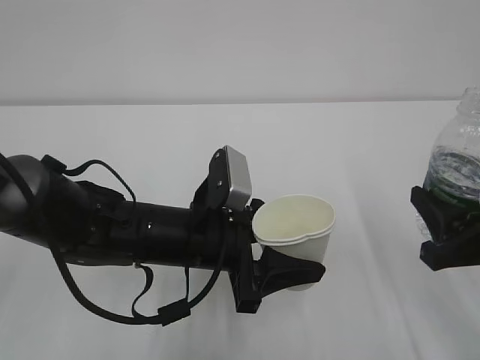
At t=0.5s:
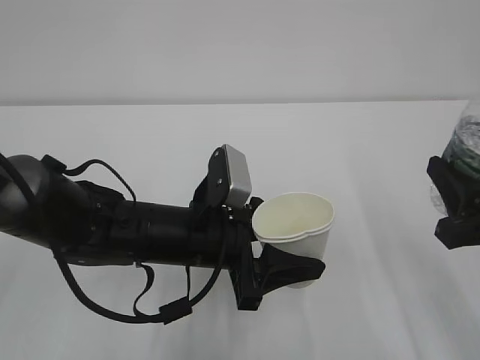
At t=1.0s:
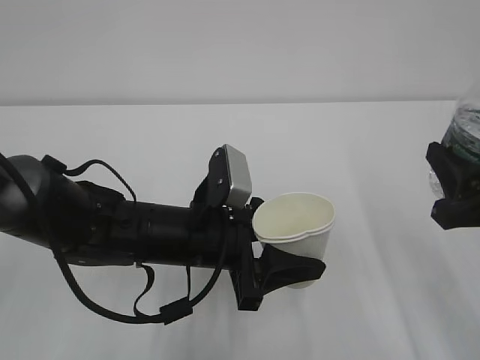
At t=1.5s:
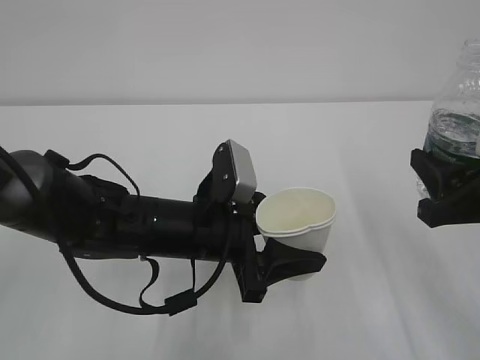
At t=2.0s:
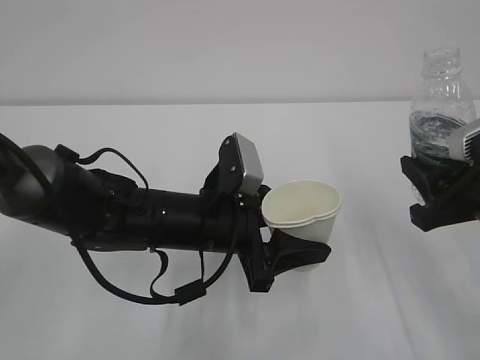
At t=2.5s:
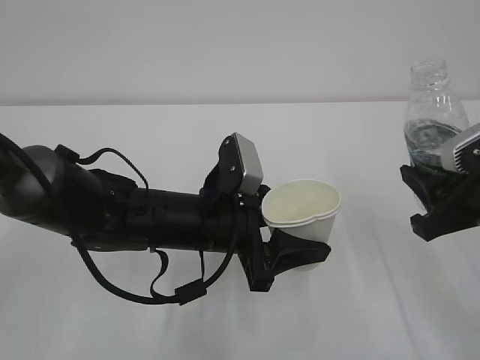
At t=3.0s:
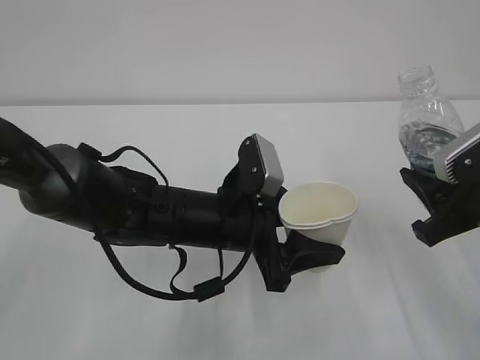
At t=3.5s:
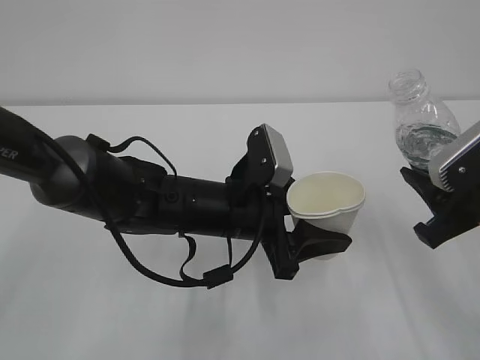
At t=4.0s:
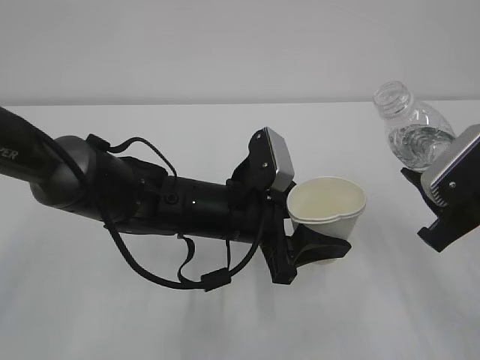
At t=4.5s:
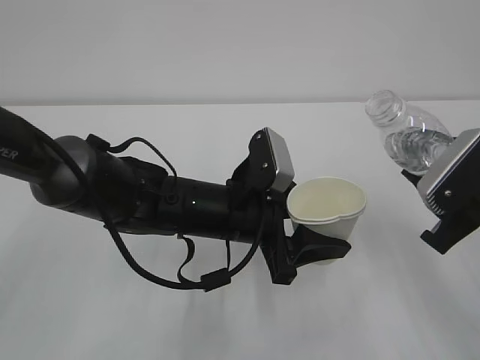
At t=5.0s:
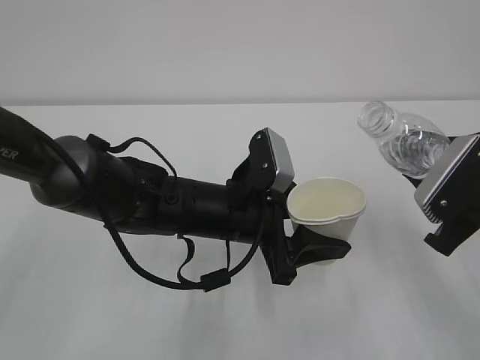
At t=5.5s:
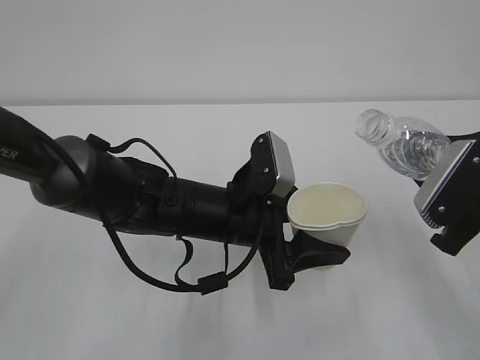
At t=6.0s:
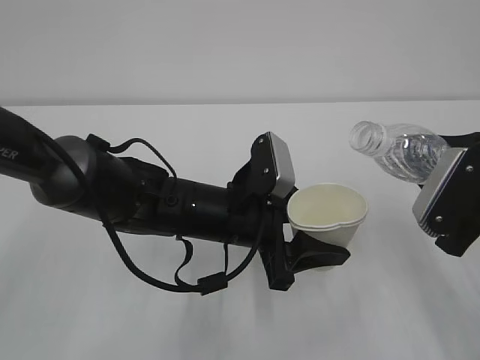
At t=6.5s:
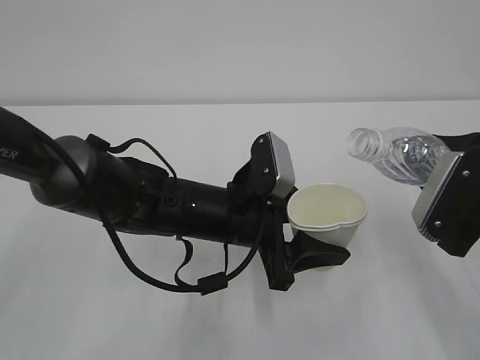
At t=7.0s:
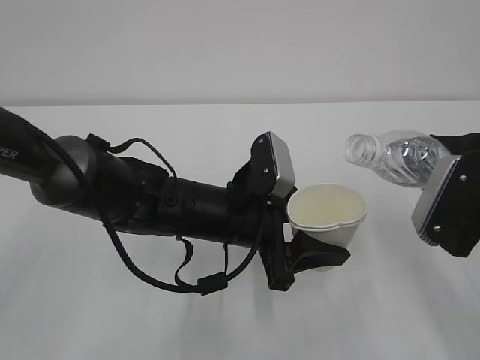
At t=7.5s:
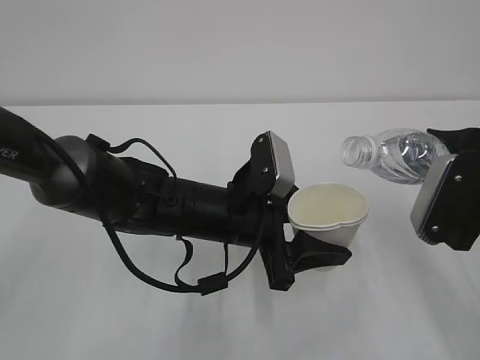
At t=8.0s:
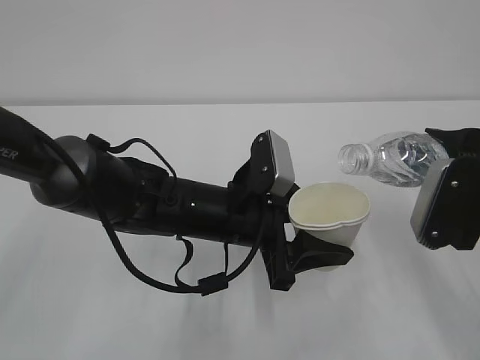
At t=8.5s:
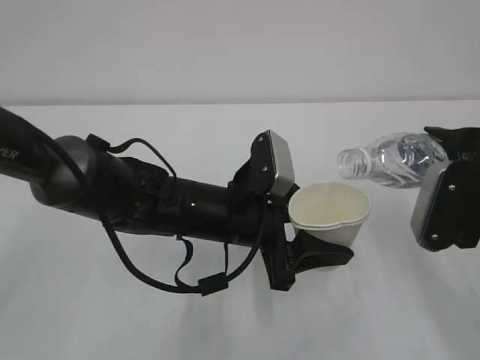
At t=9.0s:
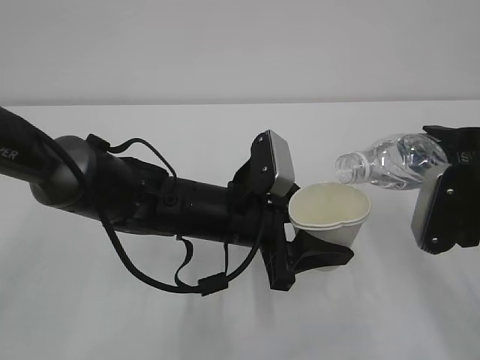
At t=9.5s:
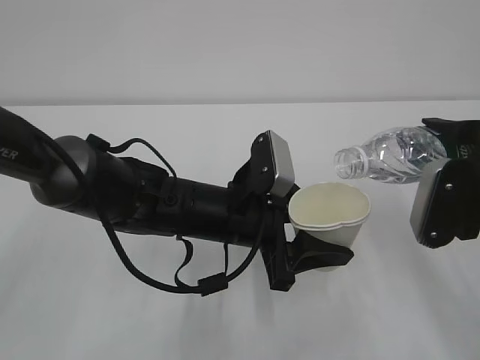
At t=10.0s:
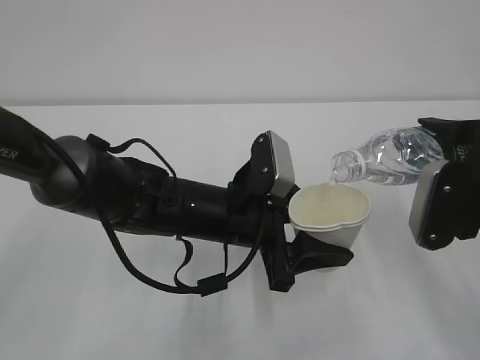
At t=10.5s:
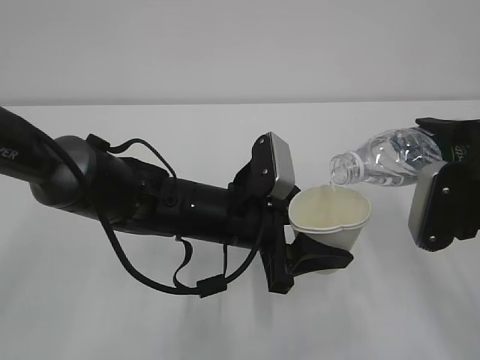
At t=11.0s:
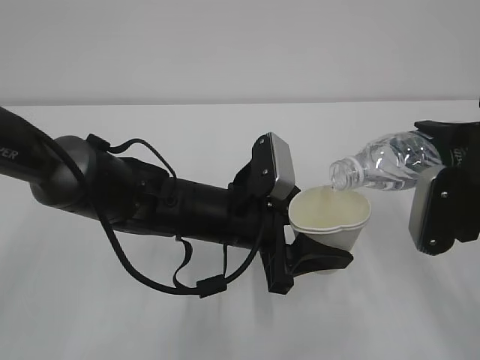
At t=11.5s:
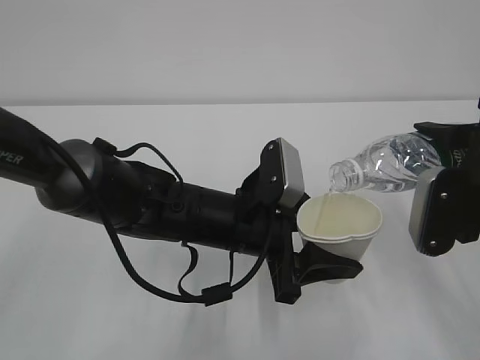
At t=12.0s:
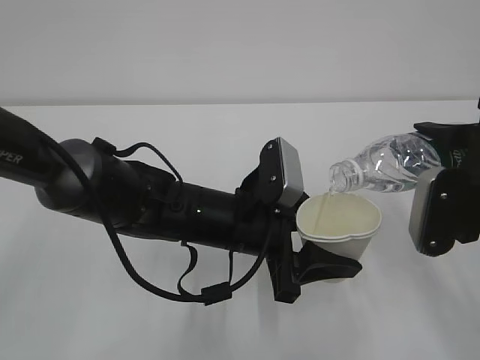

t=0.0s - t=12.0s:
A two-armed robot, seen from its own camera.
t=0.0s - t=2.0s: The grippers move only a little.
t=6.0s - t=8.0s: The grippers stay close to where they were, moving slightly.
t=8.0s - t=10.0s: The grippers stay close to where they were, moving slightly.
t=10.0s - t=12.0s: Neither gripper changes place.

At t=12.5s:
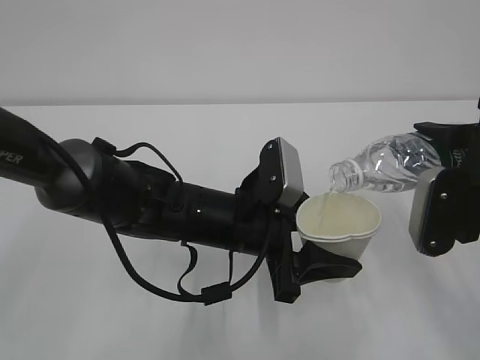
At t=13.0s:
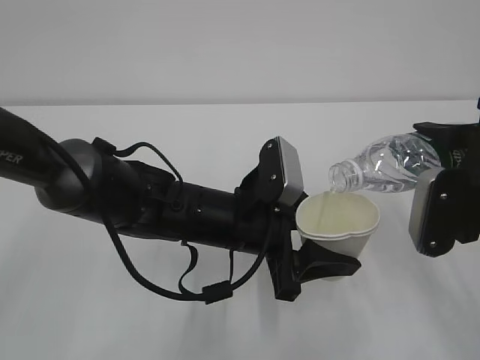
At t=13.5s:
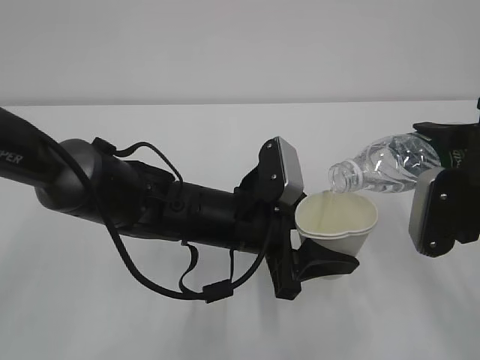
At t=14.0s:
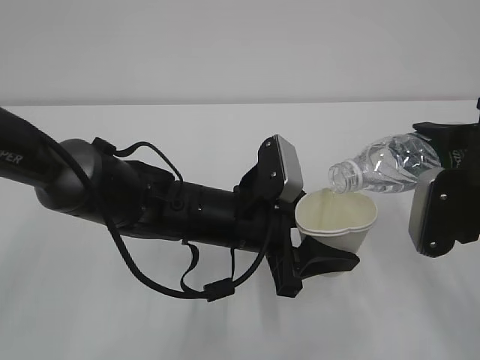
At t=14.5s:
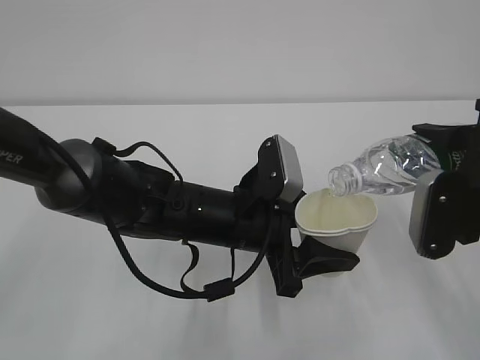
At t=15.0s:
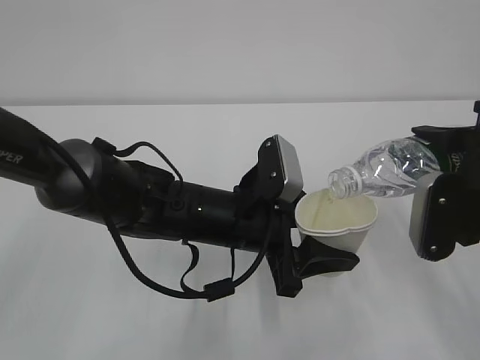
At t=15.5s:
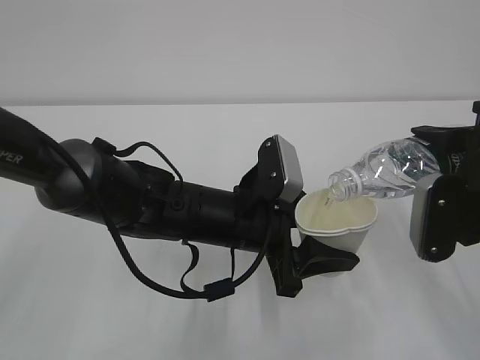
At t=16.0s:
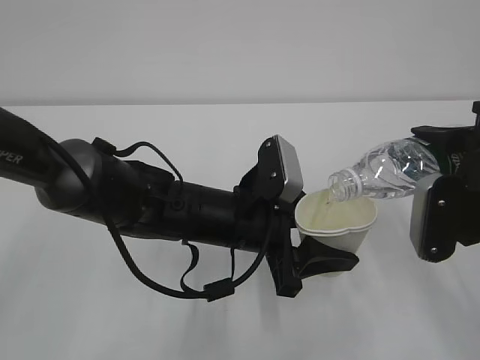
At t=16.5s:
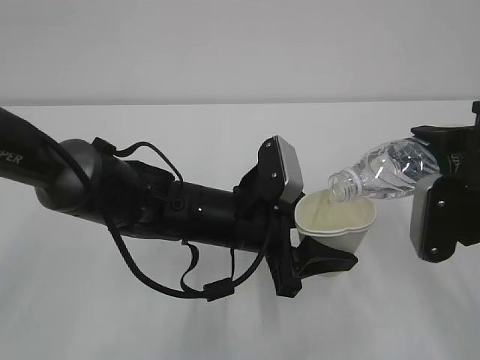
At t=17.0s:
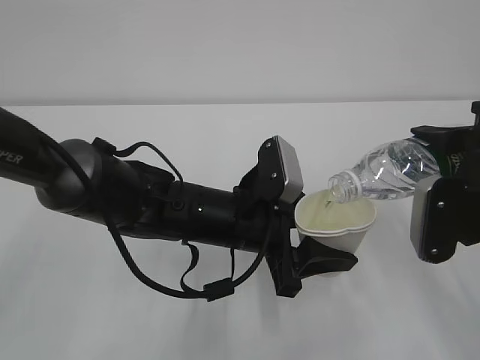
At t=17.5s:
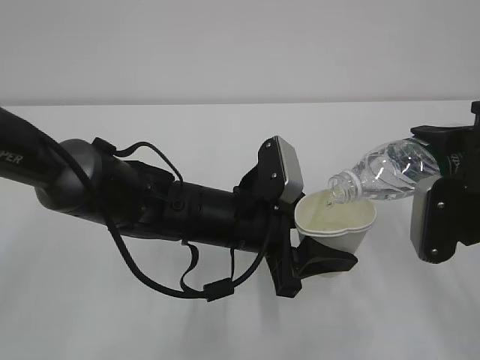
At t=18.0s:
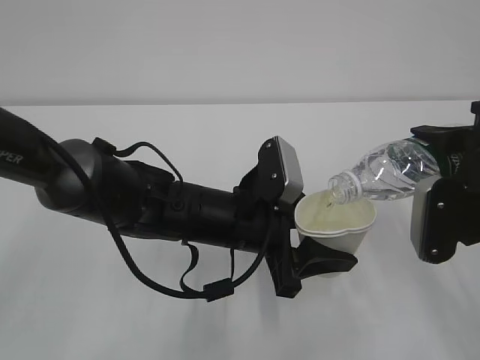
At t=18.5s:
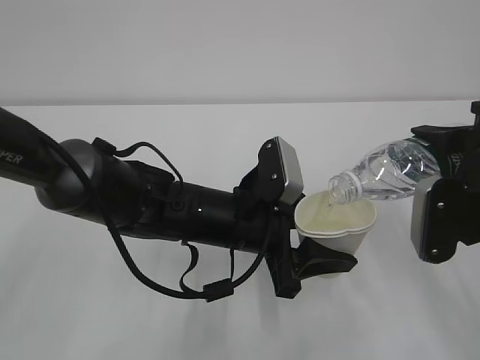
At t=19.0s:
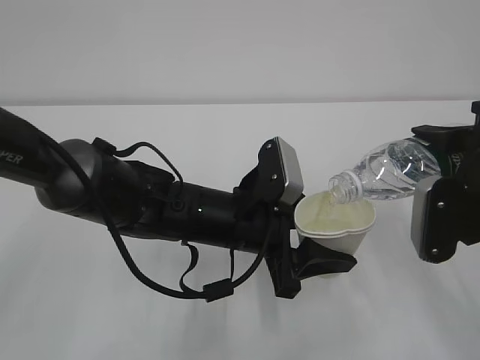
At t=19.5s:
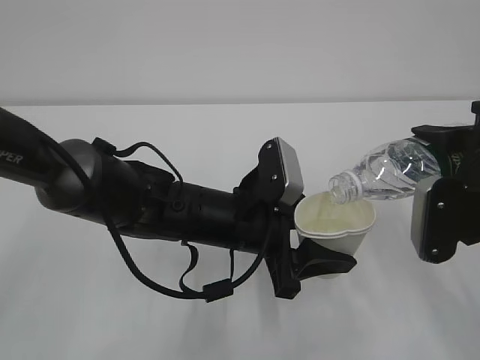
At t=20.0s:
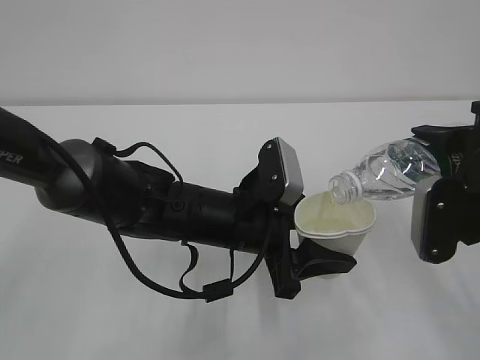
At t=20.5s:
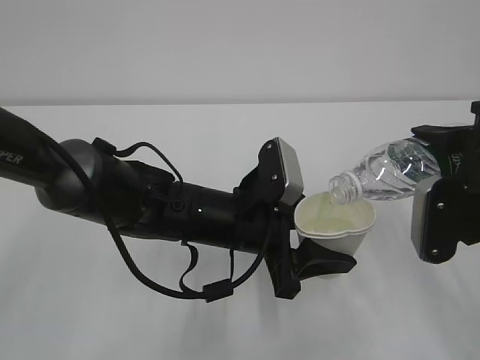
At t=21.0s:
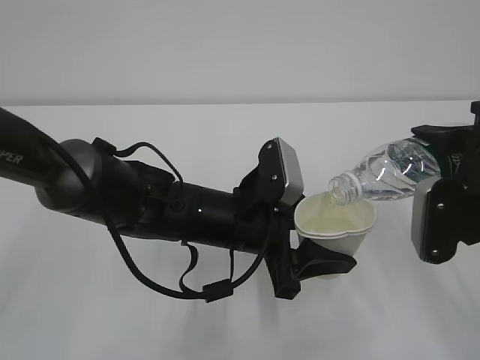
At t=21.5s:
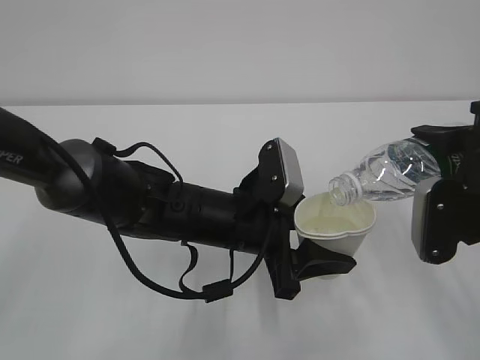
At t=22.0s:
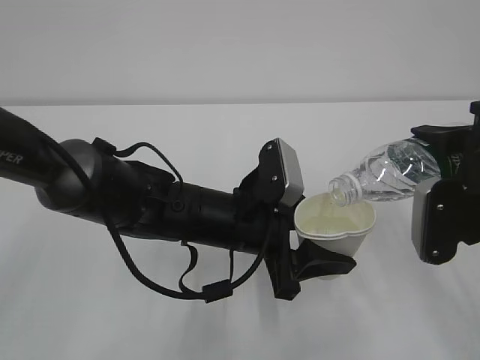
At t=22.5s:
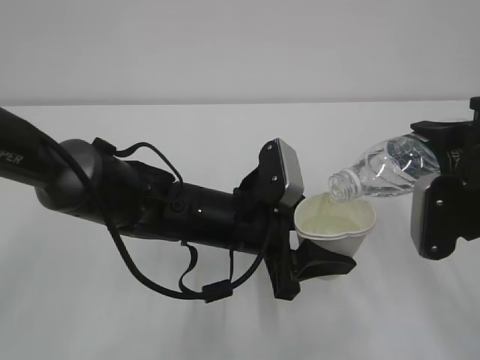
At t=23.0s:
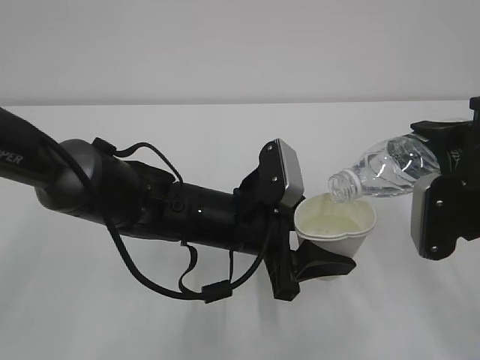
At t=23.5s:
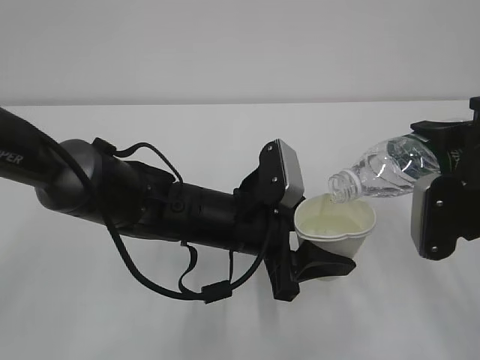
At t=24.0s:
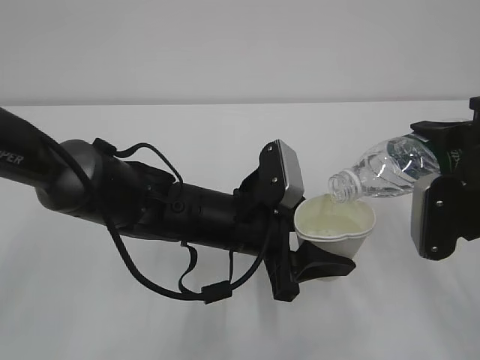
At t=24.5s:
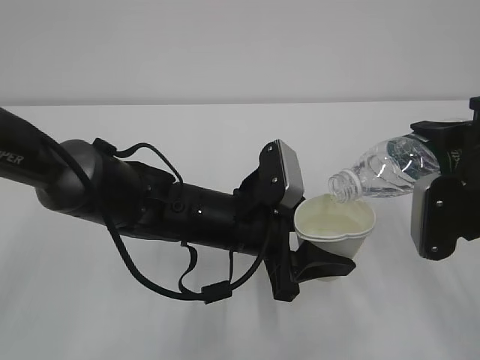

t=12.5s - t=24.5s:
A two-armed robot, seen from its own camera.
t=12.5s - t=18.5s: The two grippers keep their place.
t=18.5s - t=24.5s: Both grippers stay about where they are.

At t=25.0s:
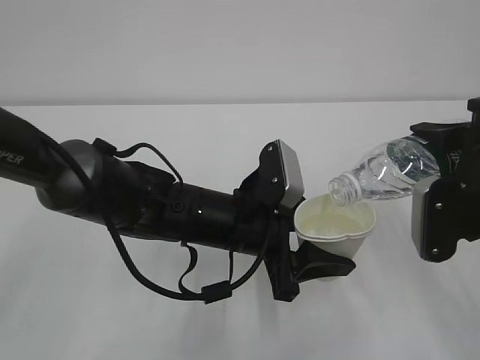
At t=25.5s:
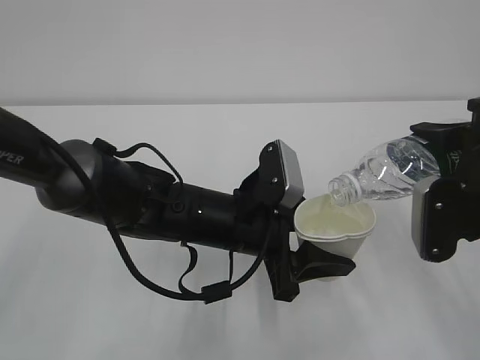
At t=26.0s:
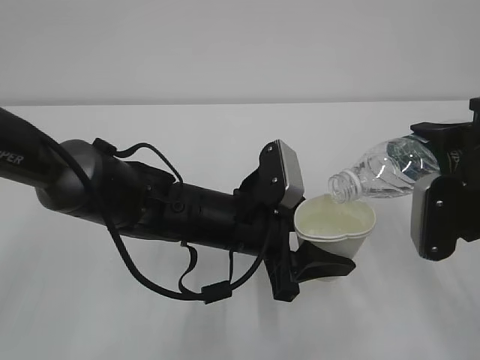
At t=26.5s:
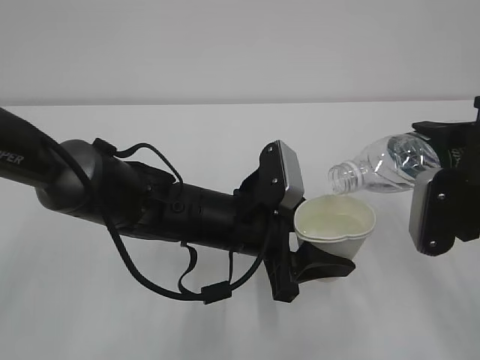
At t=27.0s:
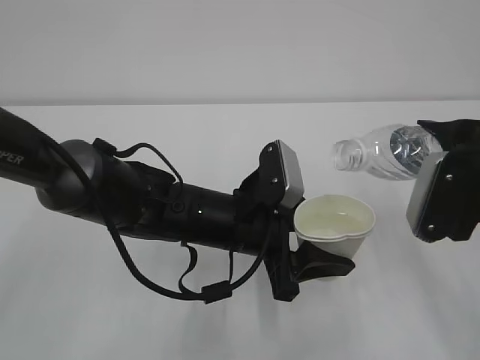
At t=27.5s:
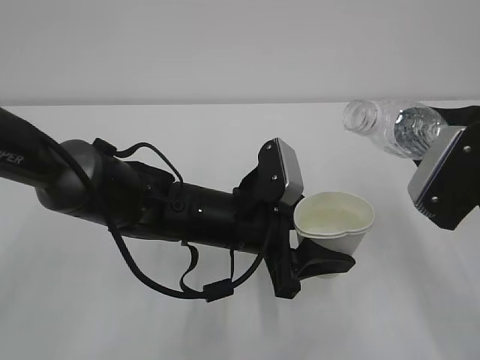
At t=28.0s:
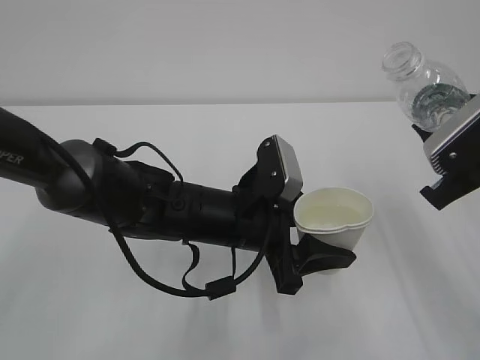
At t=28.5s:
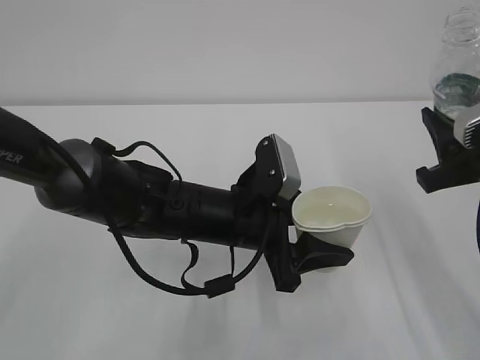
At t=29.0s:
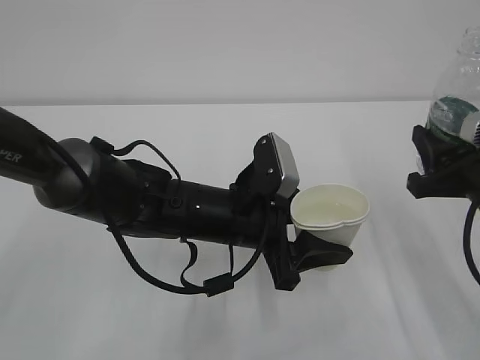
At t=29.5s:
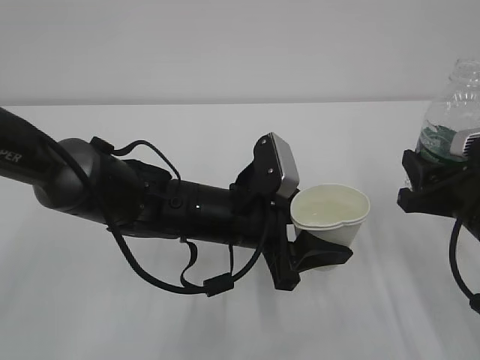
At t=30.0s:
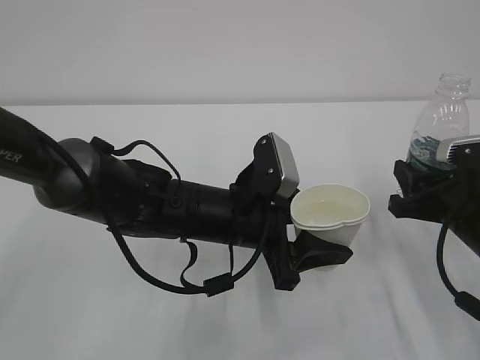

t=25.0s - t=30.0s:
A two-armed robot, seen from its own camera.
t=27.5s - t=30.0s: The right gripper travels downward by about 10 cm.
